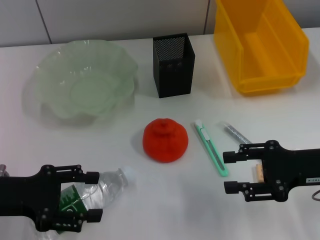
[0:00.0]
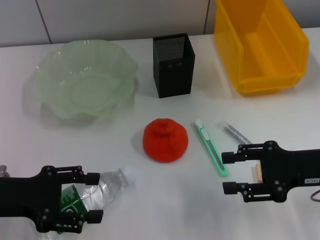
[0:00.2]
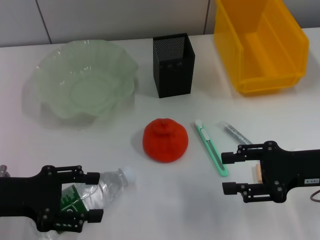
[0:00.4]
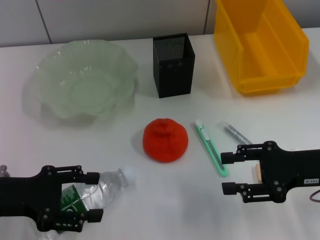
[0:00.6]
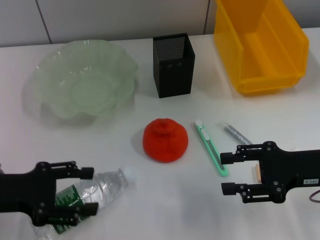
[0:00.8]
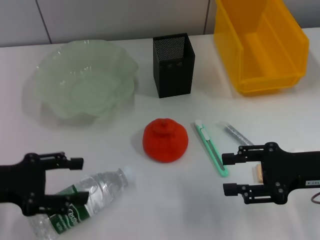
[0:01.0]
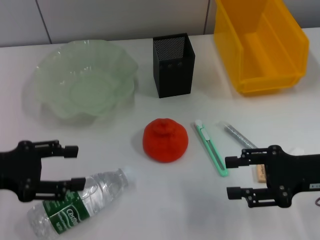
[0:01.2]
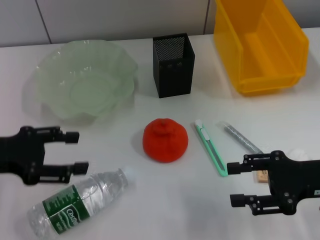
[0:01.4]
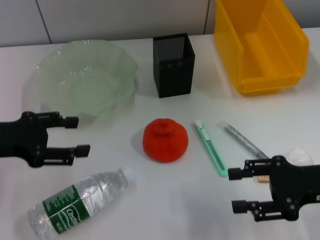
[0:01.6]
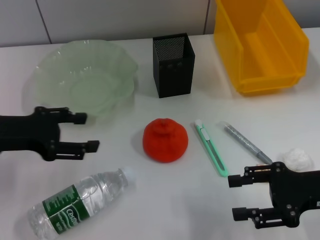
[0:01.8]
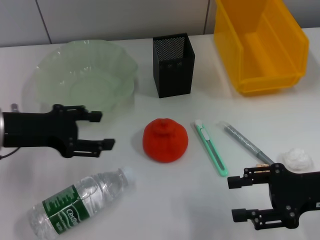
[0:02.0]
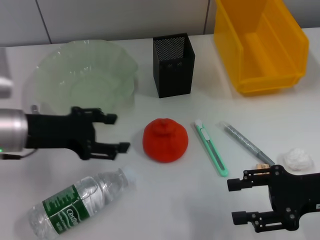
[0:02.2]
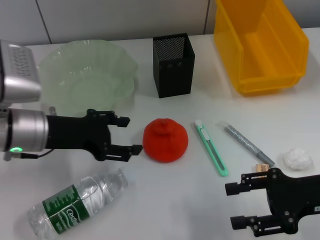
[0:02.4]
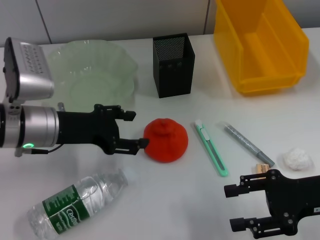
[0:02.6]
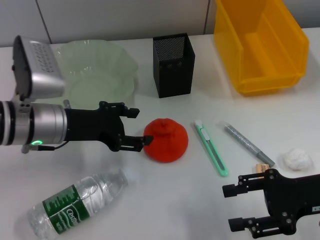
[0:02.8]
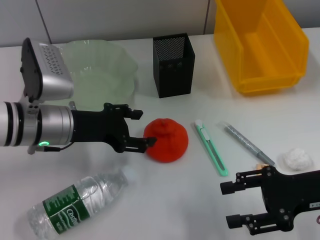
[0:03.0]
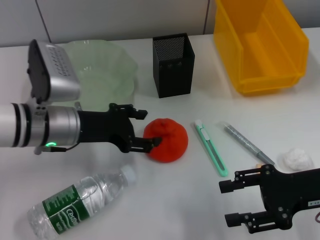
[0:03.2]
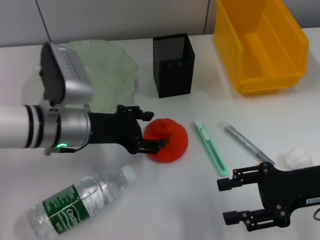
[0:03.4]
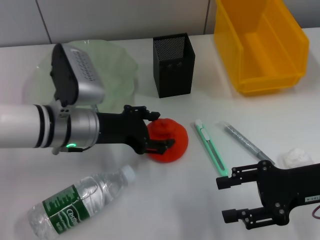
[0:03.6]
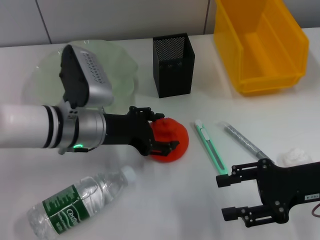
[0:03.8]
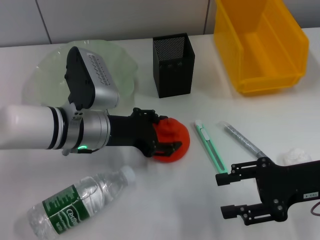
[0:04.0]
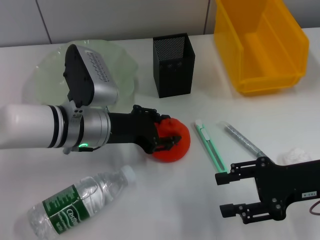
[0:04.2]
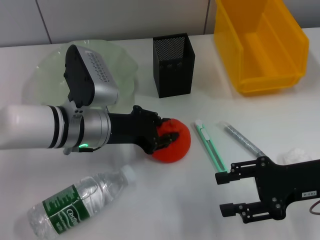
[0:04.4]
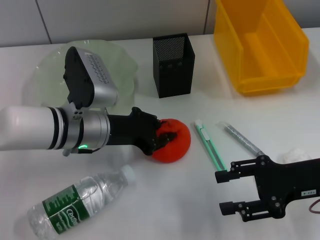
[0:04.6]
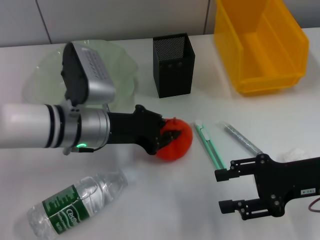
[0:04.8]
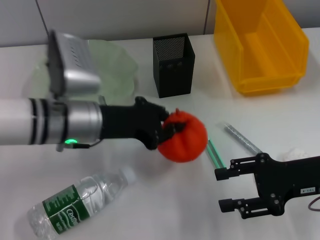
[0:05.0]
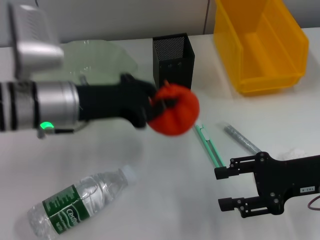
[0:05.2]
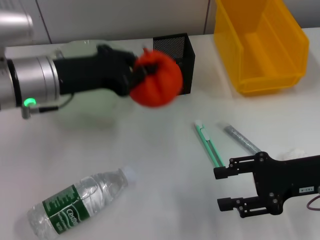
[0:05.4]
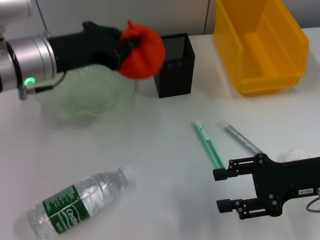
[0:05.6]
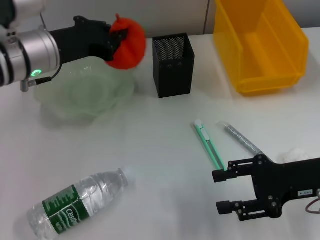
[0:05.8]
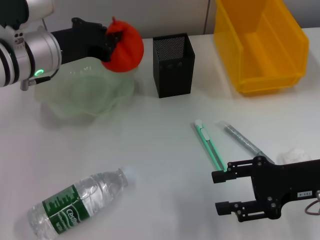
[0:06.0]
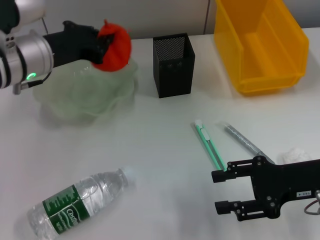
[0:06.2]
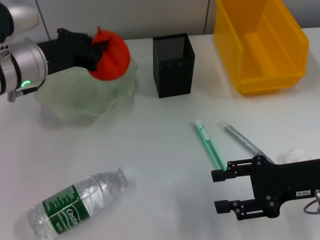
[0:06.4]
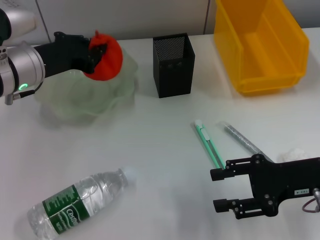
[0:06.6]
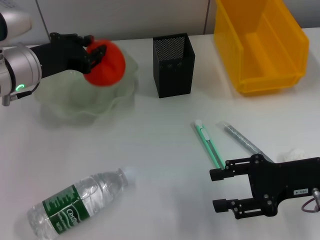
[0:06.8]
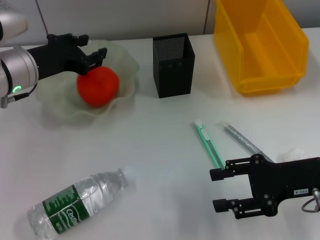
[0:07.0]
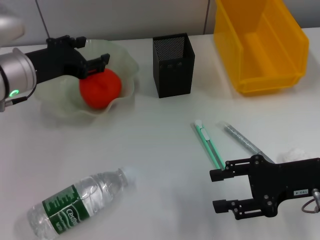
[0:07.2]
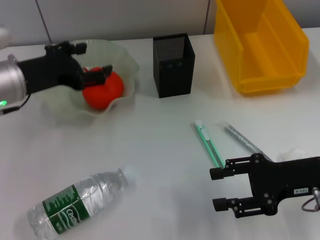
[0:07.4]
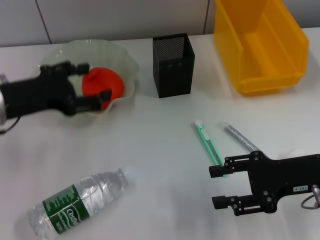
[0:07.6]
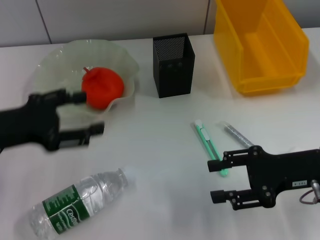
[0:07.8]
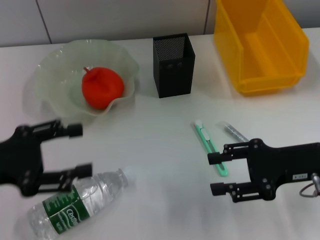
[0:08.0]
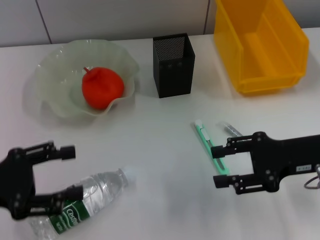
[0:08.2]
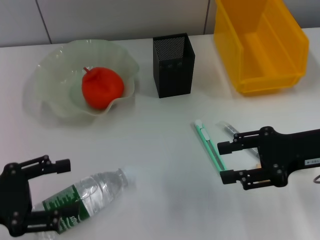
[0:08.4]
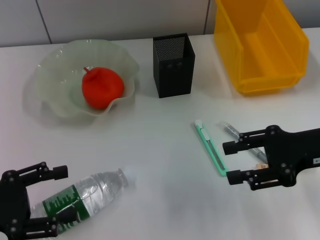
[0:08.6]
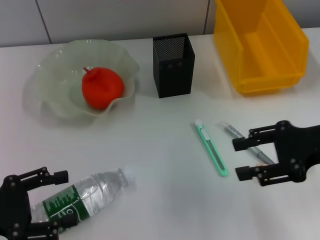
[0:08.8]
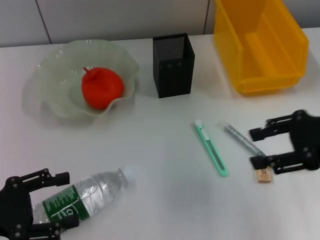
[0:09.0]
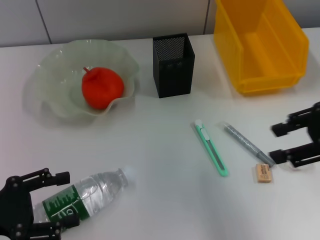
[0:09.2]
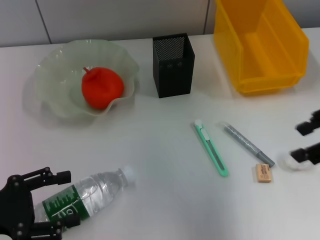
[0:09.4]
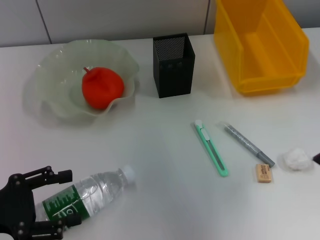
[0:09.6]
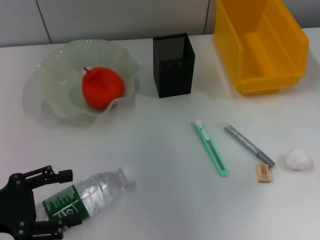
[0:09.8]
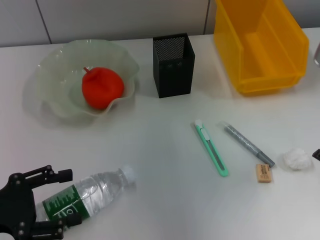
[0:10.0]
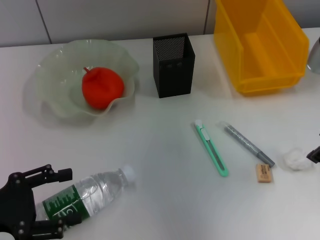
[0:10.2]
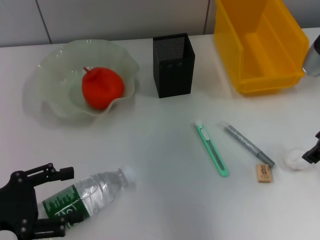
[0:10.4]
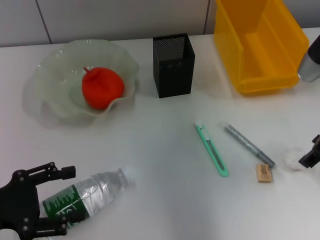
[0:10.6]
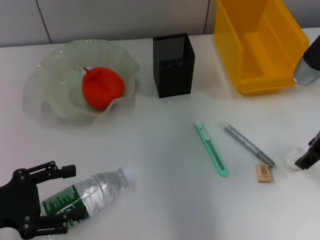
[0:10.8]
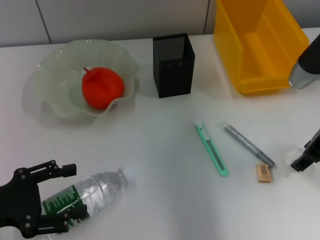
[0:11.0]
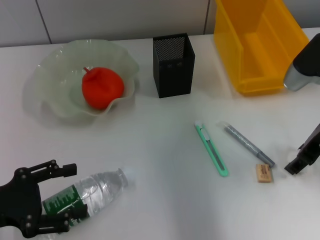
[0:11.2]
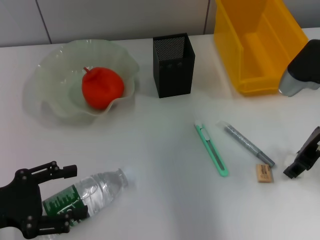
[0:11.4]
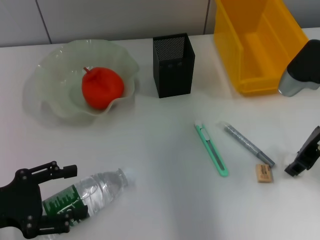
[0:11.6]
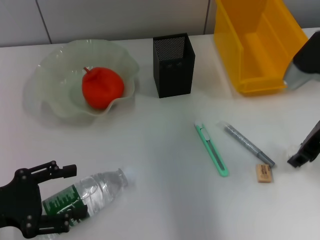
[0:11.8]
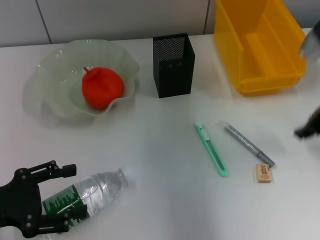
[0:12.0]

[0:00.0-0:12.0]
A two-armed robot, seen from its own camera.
Step, 0.0 to 4.4 s: Grab the orange with the left hand.
Step, 4.6 to 7.4 s: Place the orange into the fruit bowl with the left hand.
Step, 7.6 to 11.8 s: Grab the paper ball with the right hand.
0.0 to 1.6 s: The left gripper moves roughly 5 cm.
1.6 to 3.0 s: The left gripper travels to the right by roughly 10 cm.
3.0 to 4.4 s: The left gripper changes place by some 5 cm.
4.4 to 6.0 s: The left gripper heads upward and forward, covering roughly 10 cm, and closes.
6.0 to 7.6 s: The left gripper goes approximately 10 cm backward and to the left, and opens.
7.6 to 9.0 s: The right gripper moves upward, about 10 cm; the left gripper is displaced backward, to the left and downward by some 15 cm.
9.0 to 10.4 s: The right gripper moves forward, roughly 5 cm.
10.4 to 12.0 s: The right gripper closes.

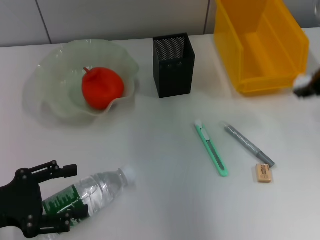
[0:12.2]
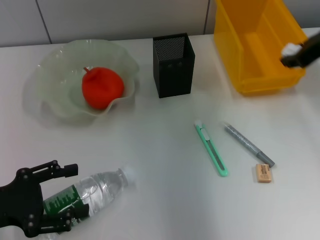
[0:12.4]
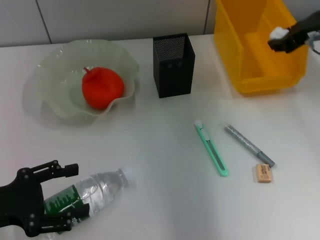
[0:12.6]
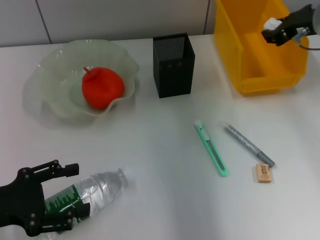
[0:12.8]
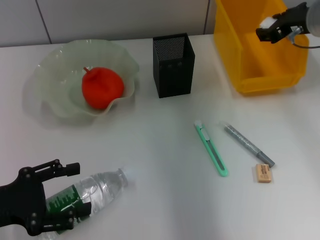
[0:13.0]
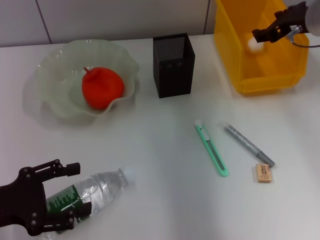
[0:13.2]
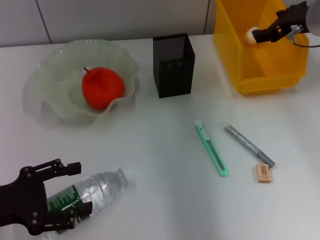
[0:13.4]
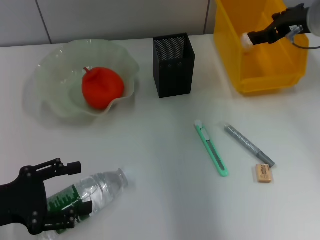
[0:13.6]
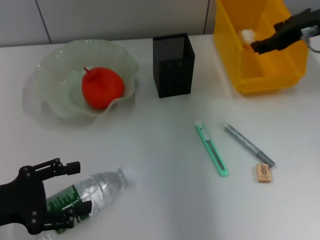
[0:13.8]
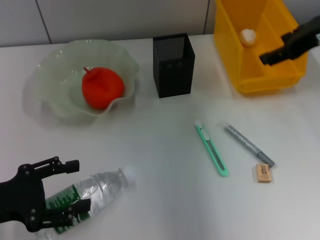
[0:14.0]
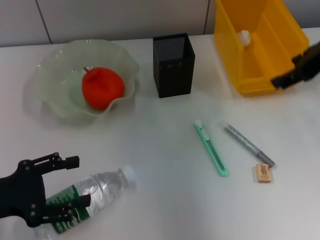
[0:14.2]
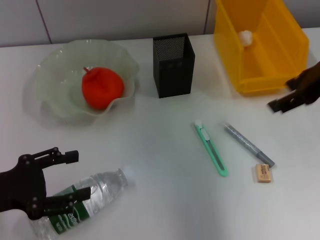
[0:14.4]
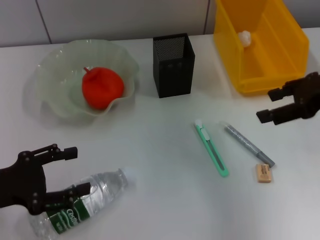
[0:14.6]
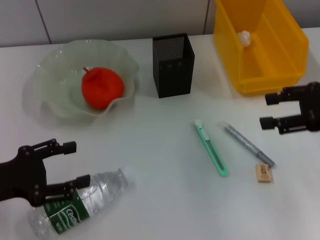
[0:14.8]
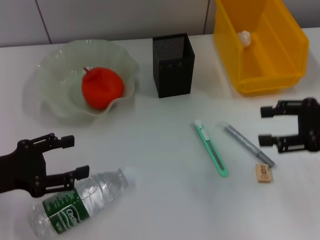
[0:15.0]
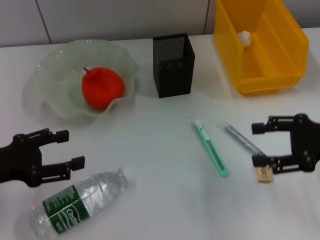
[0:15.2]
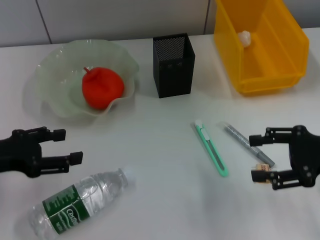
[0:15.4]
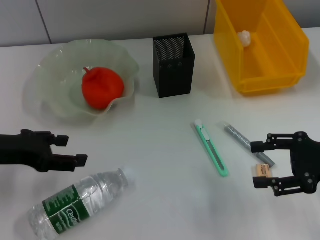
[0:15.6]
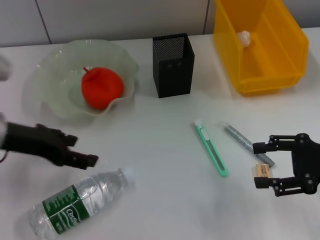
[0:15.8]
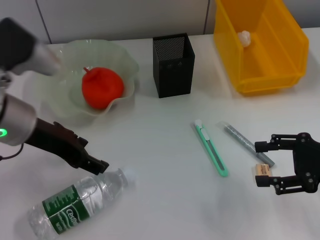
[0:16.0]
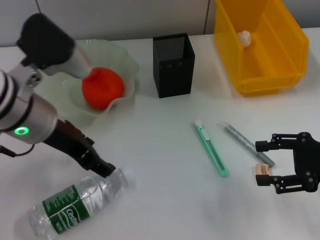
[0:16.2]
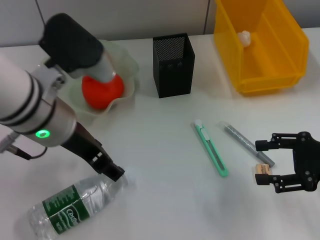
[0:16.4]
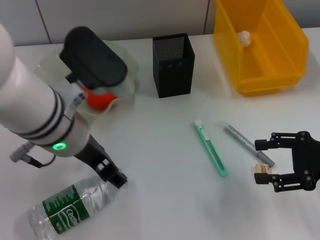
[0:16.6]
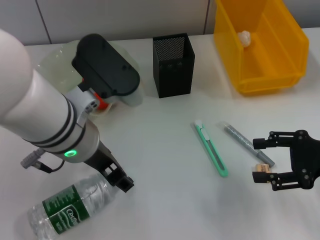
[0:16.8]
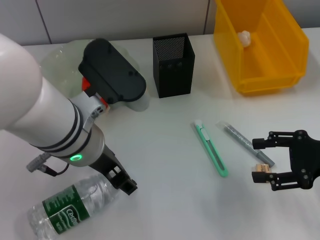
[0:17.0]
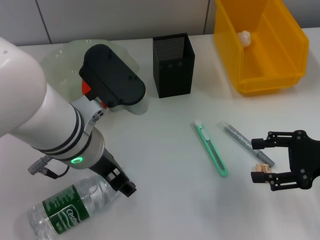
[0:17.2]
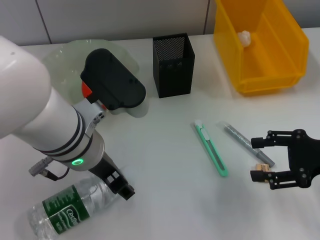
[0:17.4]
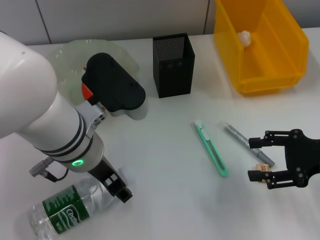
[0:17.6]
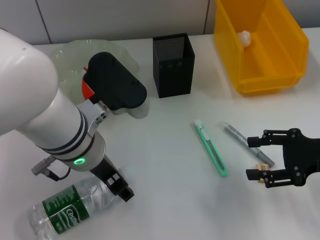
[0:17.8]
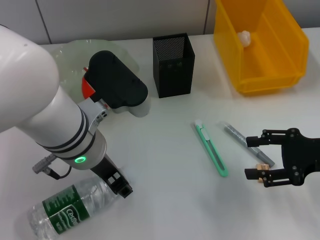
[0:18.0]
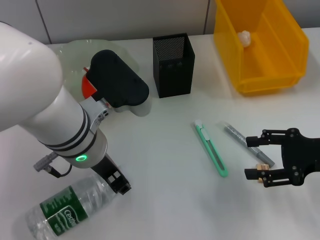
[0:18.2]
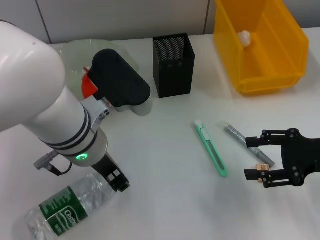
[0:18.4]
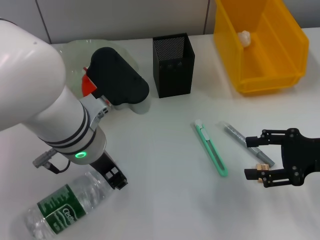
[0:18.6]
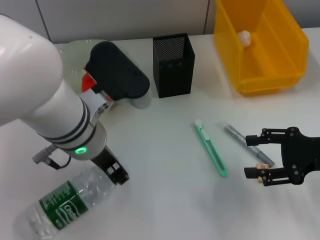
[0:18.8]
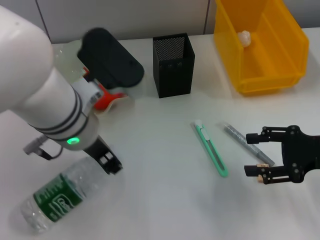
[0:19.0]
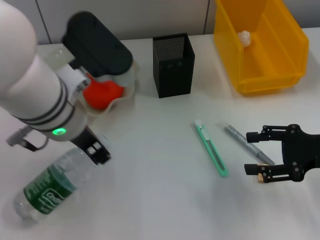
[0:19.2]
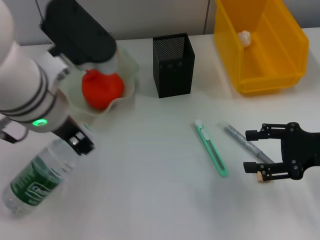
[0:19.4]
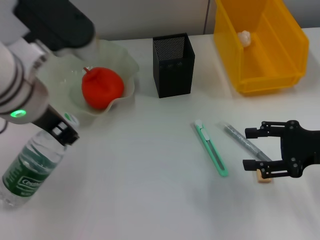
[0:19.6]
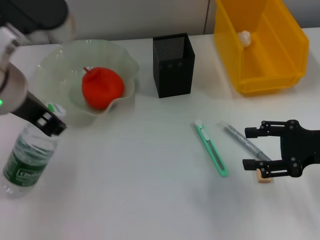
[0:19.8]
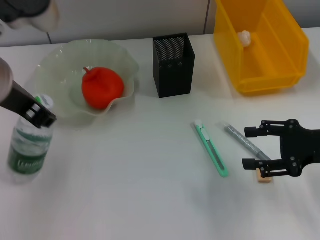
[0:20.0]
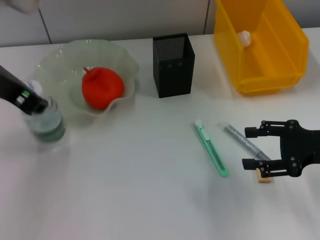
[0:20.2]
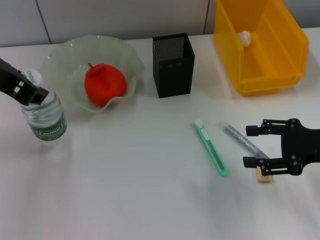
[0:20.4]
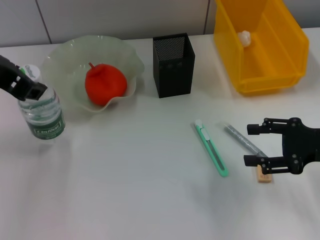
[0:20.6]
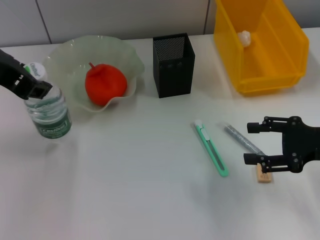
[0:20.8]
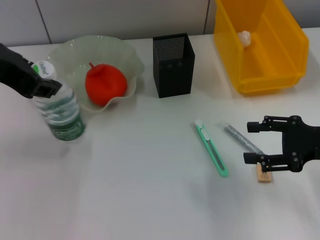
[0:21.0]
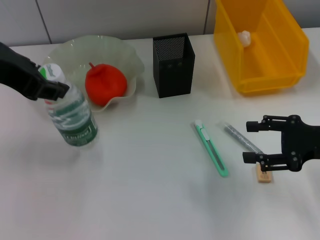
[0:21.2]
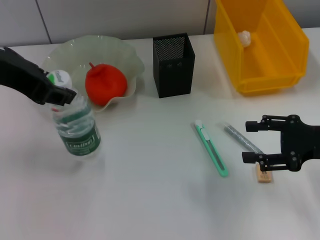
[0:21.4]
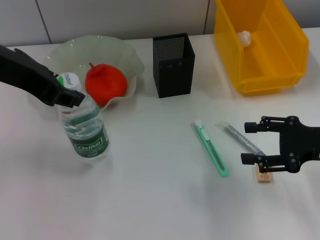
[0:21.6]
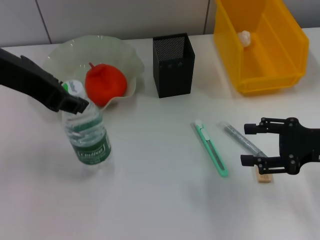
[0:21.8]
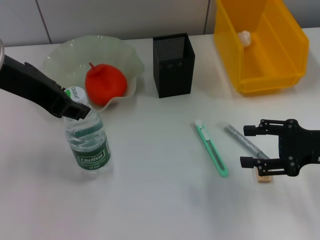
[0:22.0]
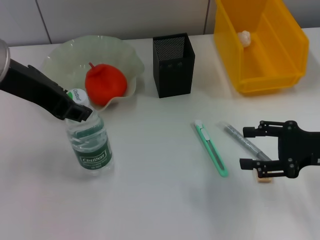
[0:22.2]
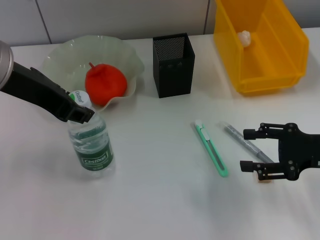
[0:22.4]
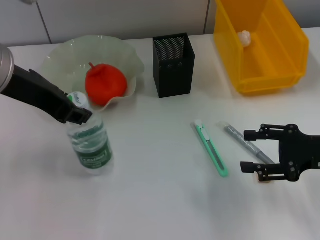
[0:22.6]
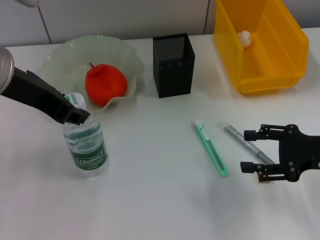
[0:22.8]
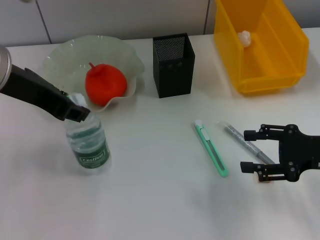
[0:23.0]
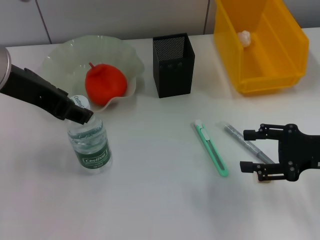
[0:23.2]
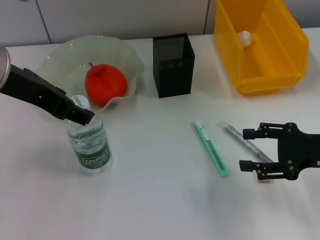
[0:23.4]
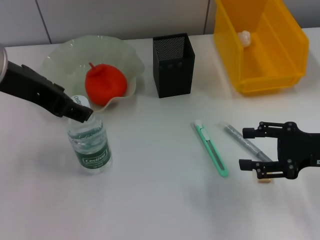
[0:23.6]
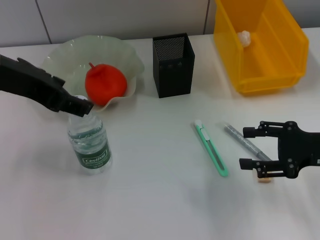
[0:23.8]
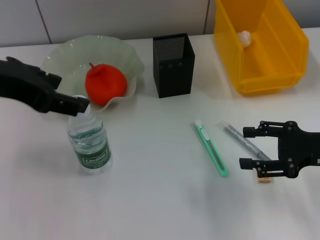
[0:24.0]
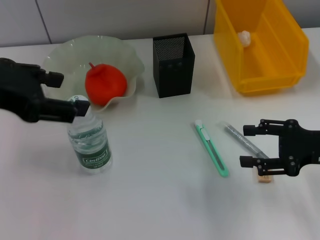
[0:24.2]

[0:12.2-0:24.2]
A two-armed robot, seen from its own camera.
Step, 12.2 to 13.4 s: Place the paper ball into the trash can with the right hand.
Step, 13.6 to 18.6 s: Grab the water bottle with the left hand.
Step, 18.8 to 24.0 s: Place the water bottle on the table with the left hand.
12.2 to 13.8 s: The right gripper opens.
13.8 to 15.2 s: The right gripper is displaced backward, downward and to the right by approximately 15 cm.
15.2 to 16.6 s: The left gripper shifts roughly 20 cm to the right and upward.
16.6 to 18.2 s: The grippers stay close to where they were, moving slightly.
18.2 to 19.8 s: The left gripper moves upward and to the left, approximately 10 cm, and closes up.
19.8 to 21.2 s: The left gripper goes approximately 10 cm upward and to the left.
21.2 to 22.6 s: There are only small adjustments of the grippers.
22.6 to 24.2 s: The left gripper moves to the left, some 5 cm, and opens.
